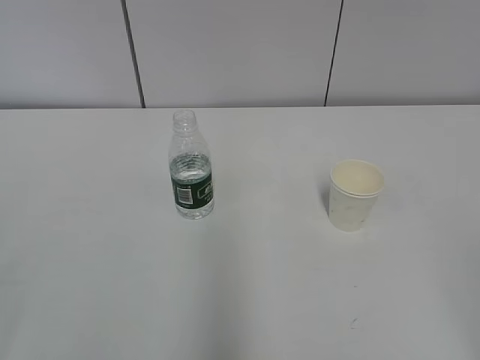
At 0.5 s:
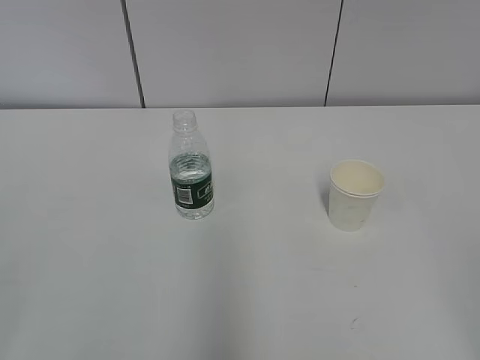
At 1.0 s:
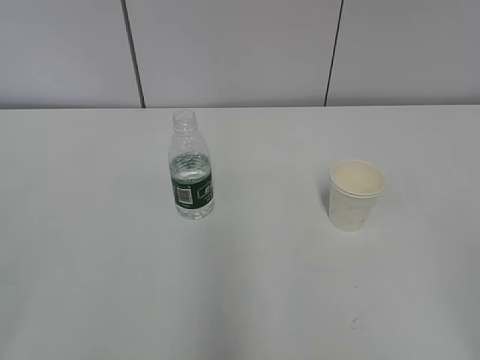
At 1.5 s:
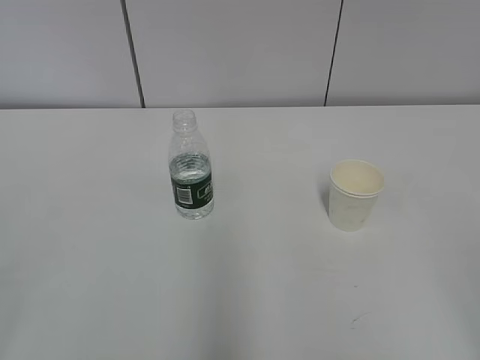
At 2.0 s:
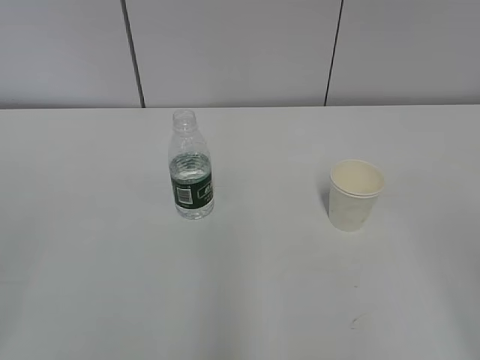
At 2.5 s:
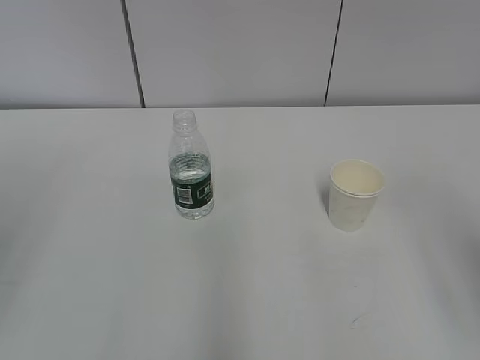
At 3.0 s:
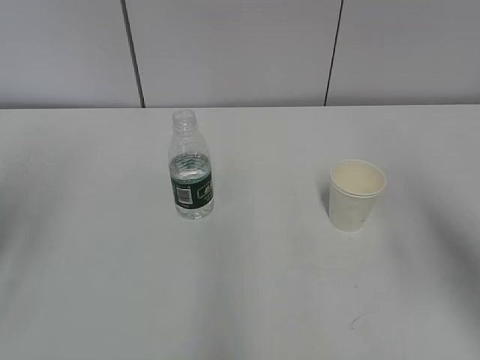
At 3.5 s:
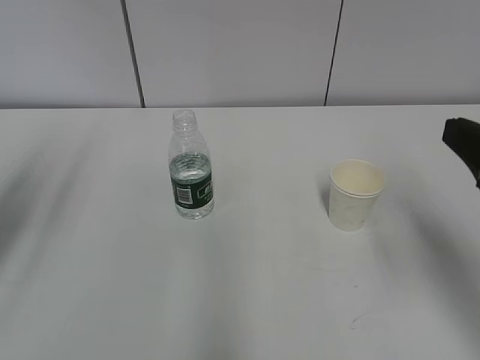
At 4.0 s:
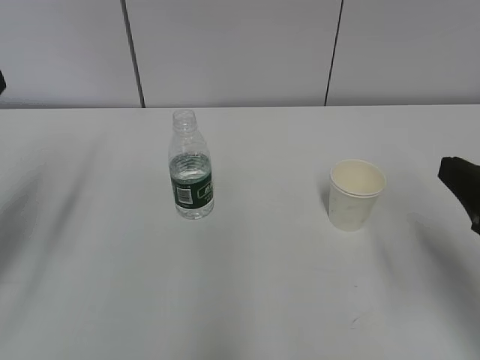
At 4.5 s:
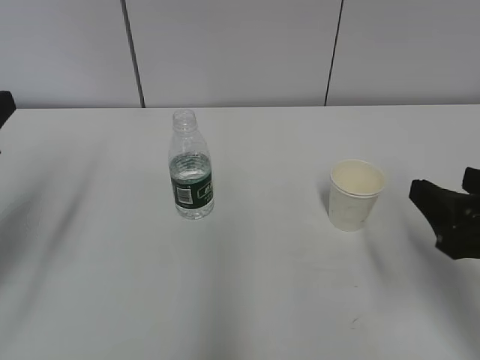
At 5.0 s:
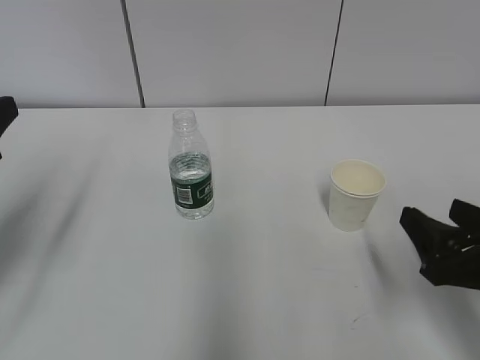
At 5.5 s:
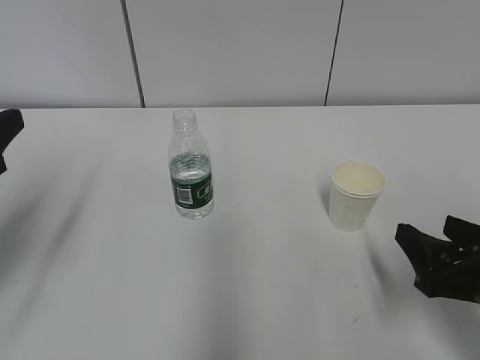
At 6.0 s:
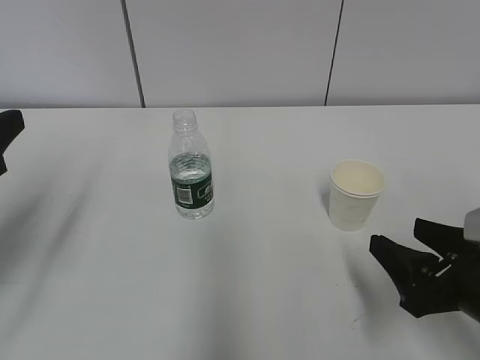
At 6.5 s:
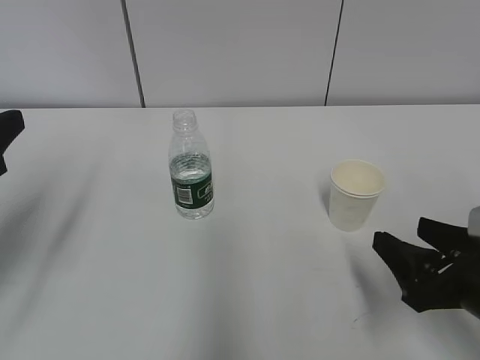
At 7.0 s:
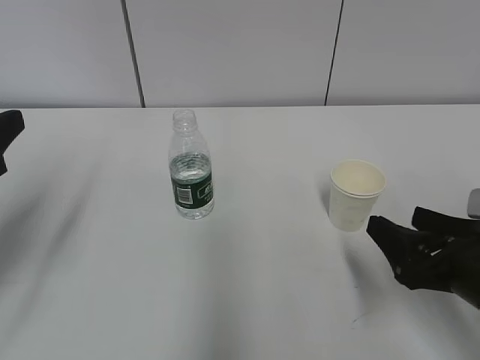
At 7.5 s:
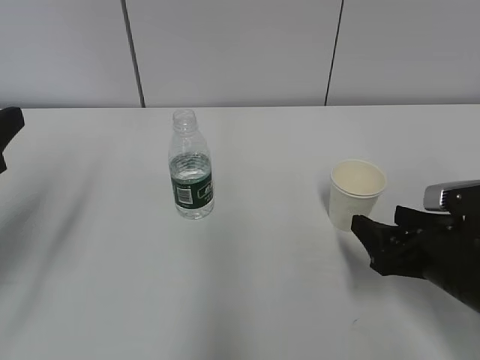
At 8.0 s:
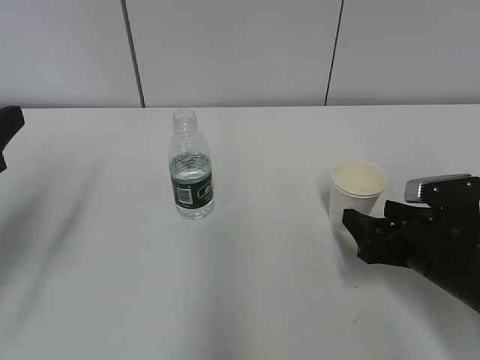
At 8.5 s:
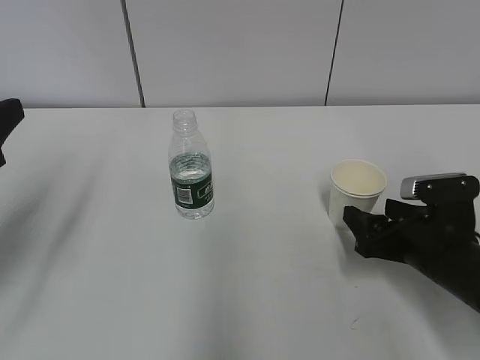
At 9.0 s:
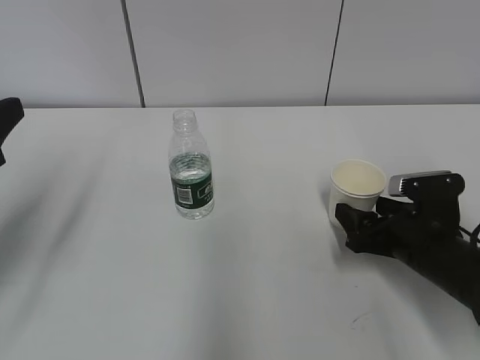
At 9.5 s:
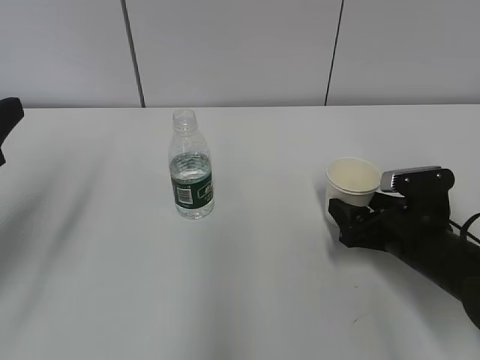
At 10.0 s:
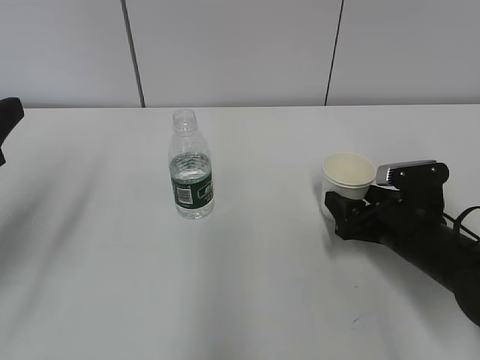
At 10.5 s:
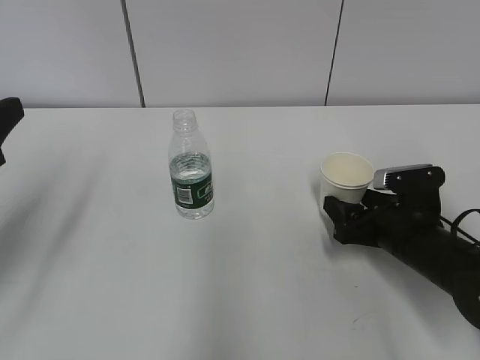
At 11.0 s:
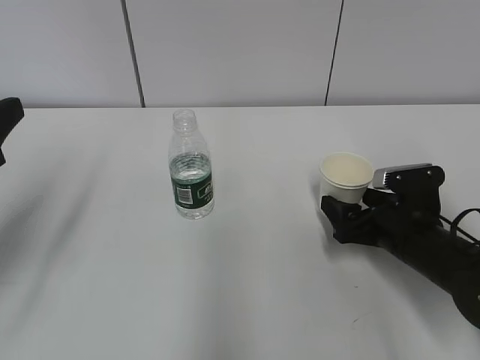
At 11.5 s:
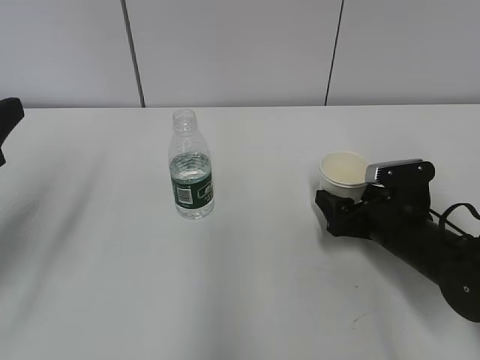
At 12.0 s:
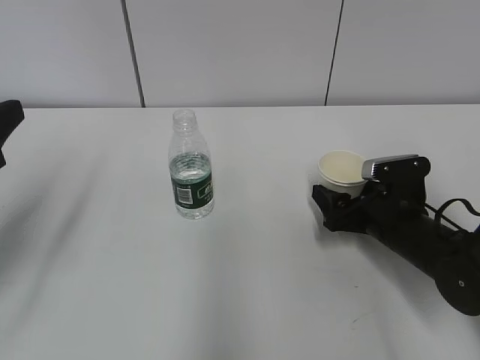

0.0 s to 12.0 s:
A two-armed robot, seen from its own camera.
2.0 to 4.0 s: The left gripper goes some 20 cm forward. Meanwhile the right gripper heads forward and downward, covering about 15 cm.
4.0 to 6.0 s: The right gripper is displaced downward by roughly 10 cm.
6.0 to 8.0 s: The right gripper travels forward by some 5 cm.
8.0 to 10.0 s: The right gripper shifts by some 5 cm.
10.0 to 12.0 s: The grippers make only small movements.

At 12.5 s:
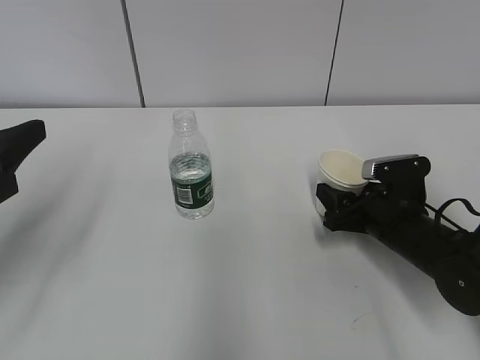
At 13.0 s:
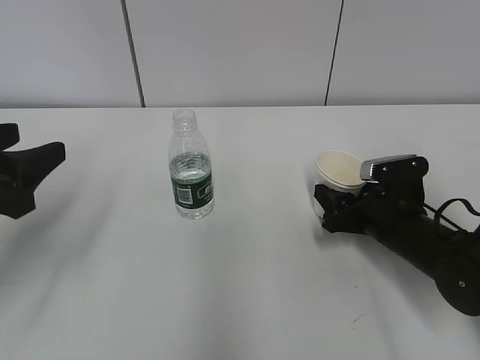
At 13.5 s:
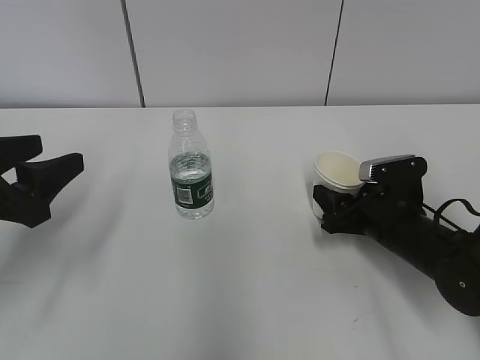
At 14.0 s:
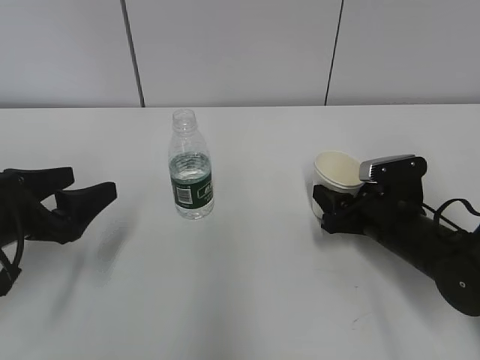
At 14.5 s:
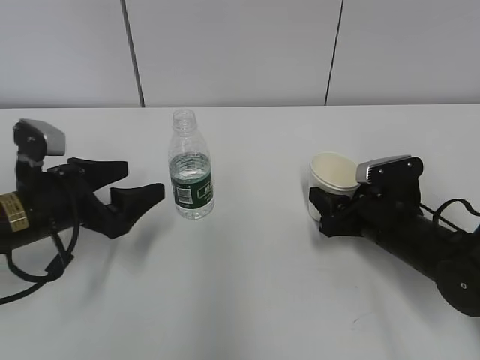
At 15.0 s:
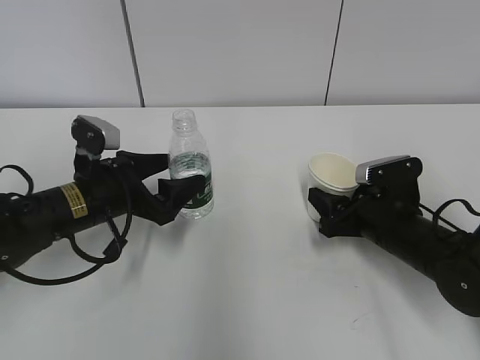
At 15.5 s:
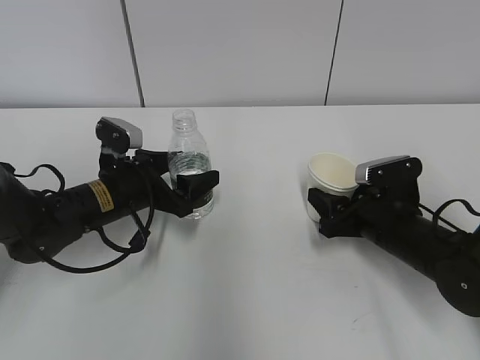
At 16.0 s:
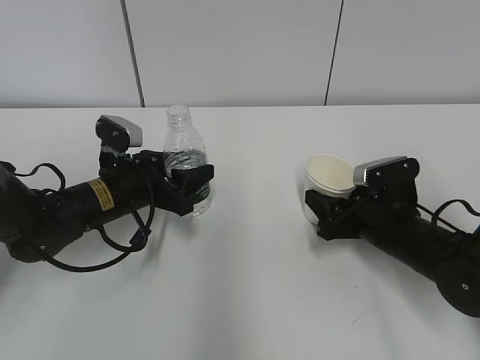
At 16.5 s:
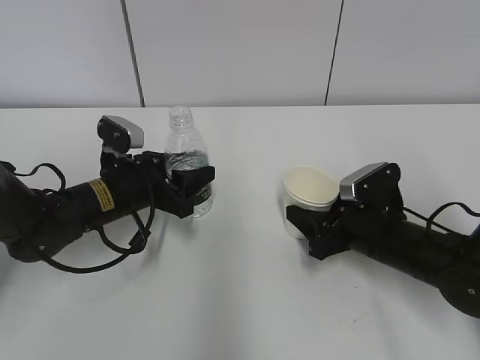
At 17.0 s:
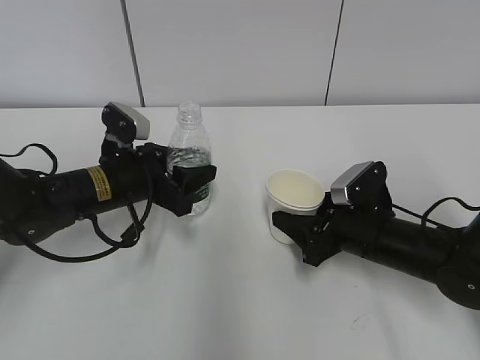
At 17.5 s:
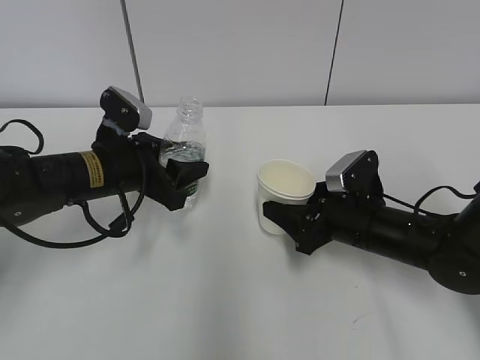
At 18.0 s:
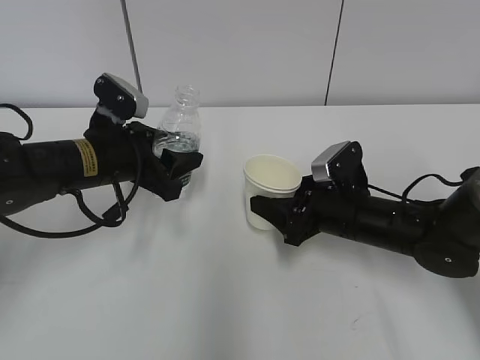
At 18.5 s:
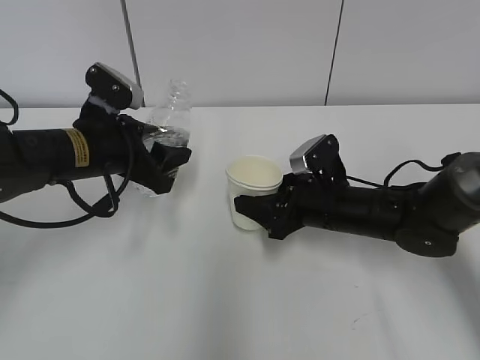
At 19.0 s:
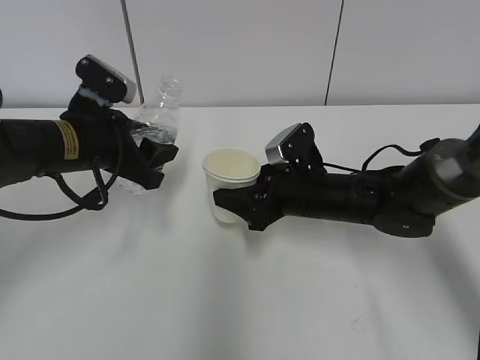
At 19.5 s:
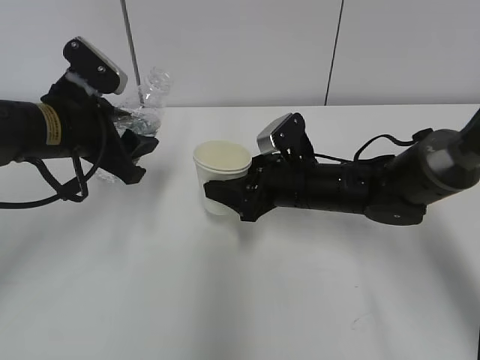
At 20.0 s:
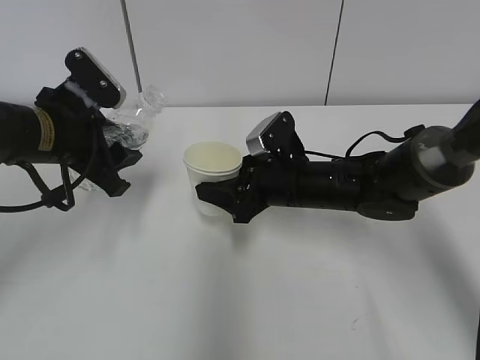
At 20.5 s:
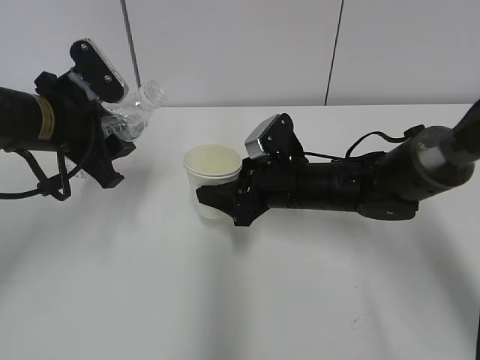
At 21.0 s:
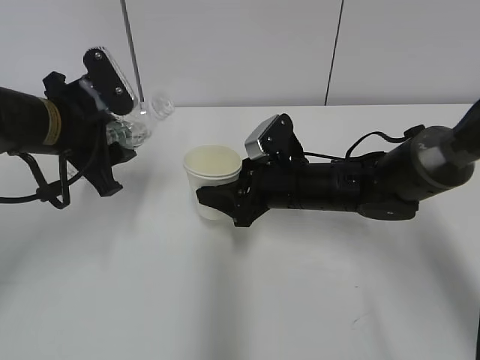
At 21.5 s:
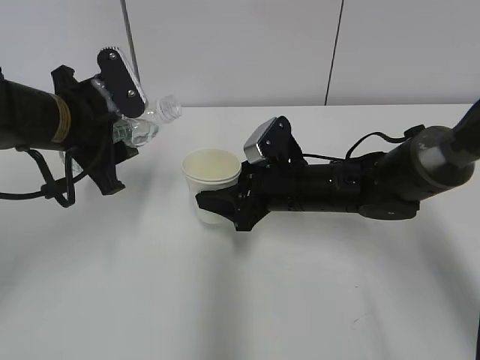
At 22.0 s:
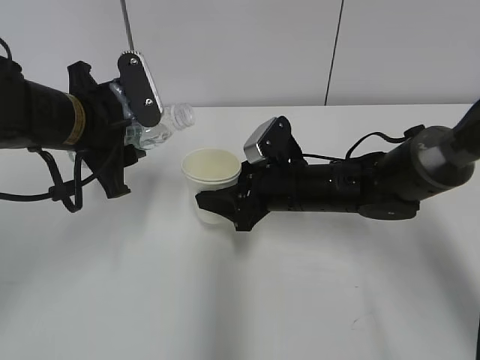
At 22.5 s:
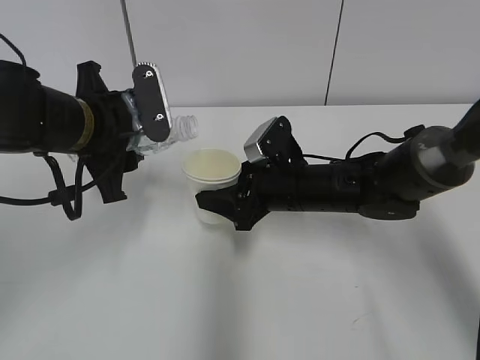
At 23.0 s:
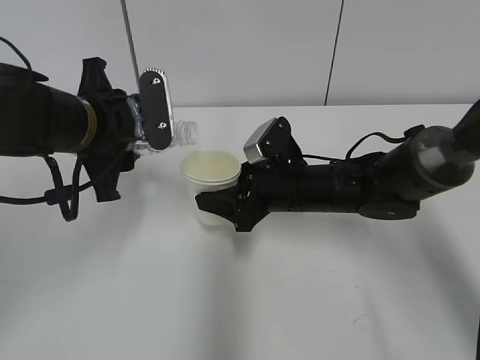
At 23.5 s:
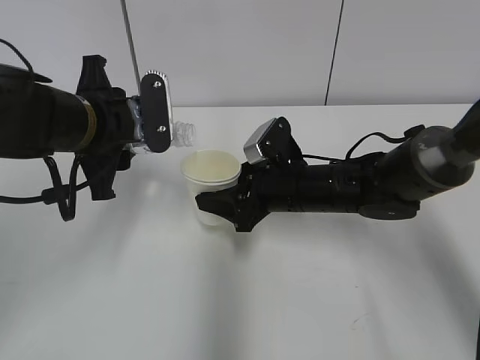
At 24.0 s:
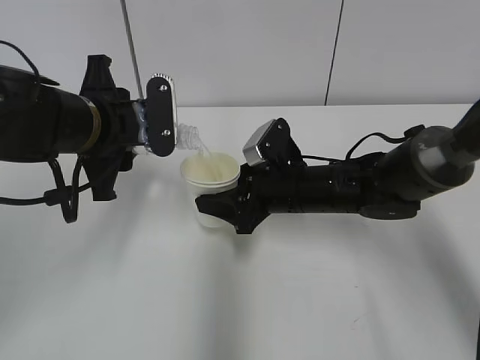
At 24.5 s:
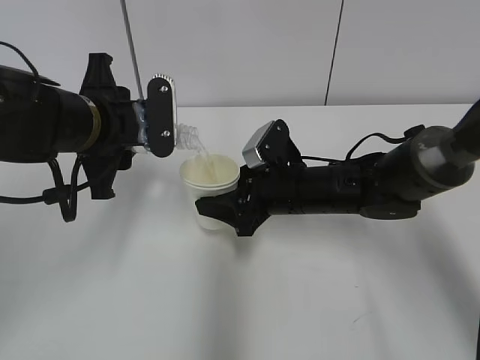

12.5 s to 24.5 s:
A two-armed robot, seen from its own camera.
Step, 13.5 to 14.0 s: Grab the water bottle with the left hand.
Step, 14.5 to 19.5 s: Lift the paper cup with the right hand.
Step, 20.0 to 24.0 s: Pour water with the left hand.
12.5 to 14.5 s: The left gripper travels downward, forward and to the right by roughly 15 cm, and opens.
14.5 to 16.5 s: The left gripper goes approximately 10 cm to the right and forward, and closes its fingers.
16.5 to 18.5 s: The right gripper shifts by approximately 5 cm. The left gripper shifts approximately 10 cm upward.
18.5 to 20.5 s: The right gripper shifts by roughly 5 cm, while the left gripper moves approximately 5 cm.
22.5 to 24.5 s: There are only small adjustments of the grippers.

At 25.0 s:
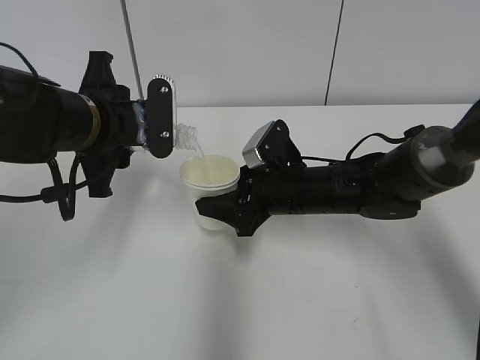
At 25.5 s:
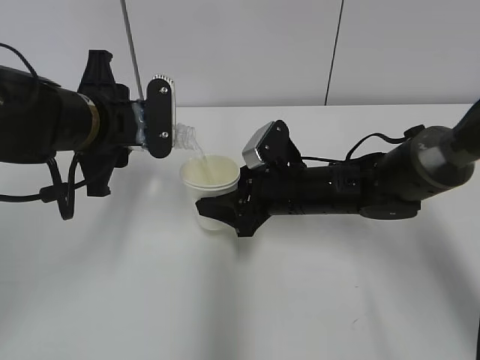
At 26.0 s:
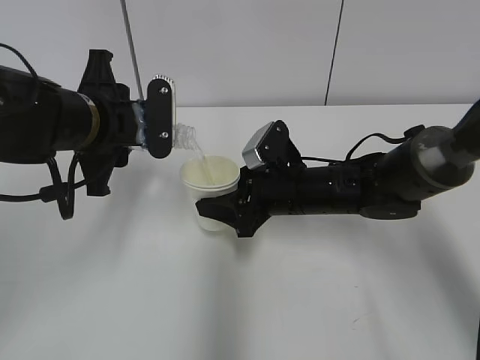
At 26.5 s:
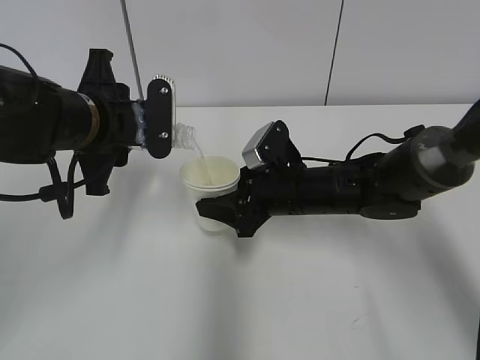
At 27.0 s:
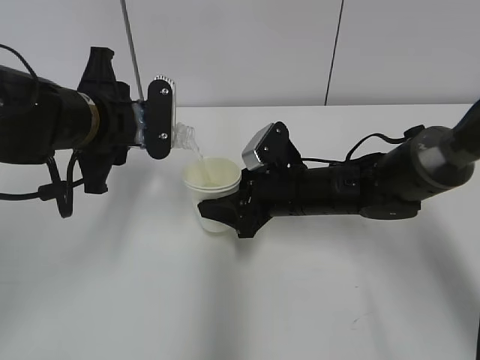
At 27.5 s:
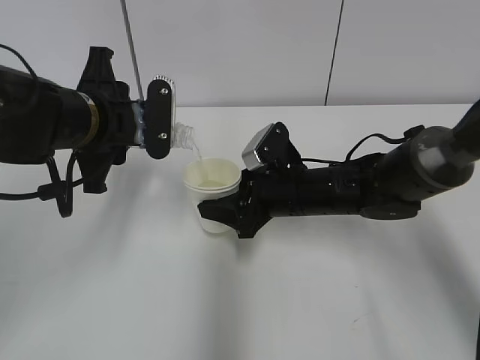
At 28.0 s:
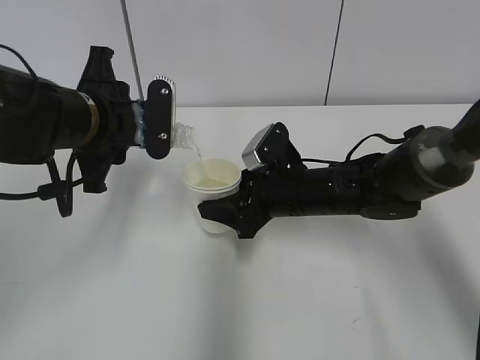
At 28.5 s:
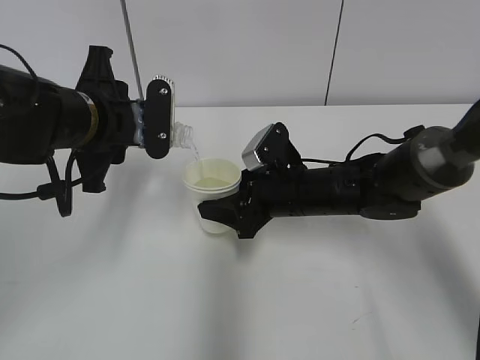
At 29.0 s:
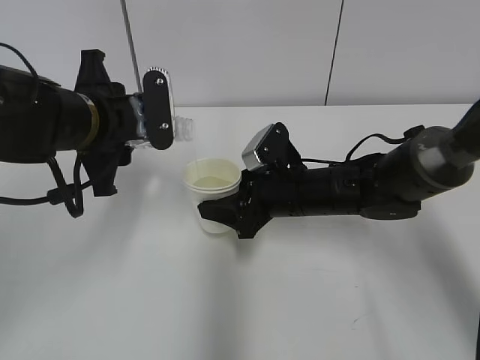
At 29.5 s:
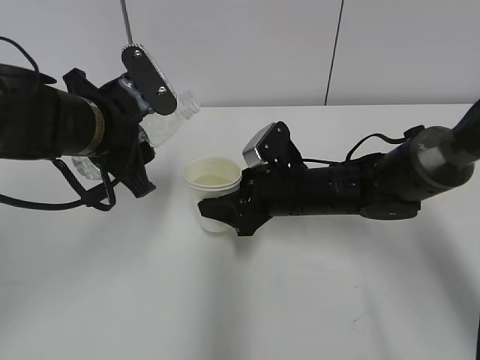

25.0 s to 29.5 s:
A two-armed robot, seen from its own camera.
25.0 to 27.0 s: Both grippers stay put.
